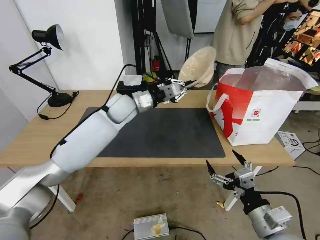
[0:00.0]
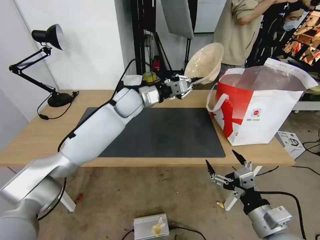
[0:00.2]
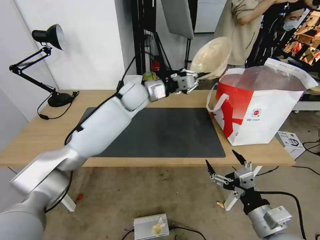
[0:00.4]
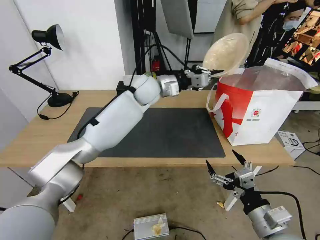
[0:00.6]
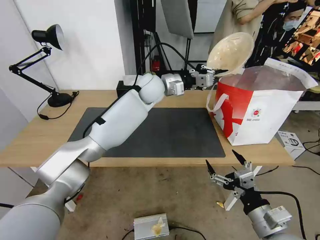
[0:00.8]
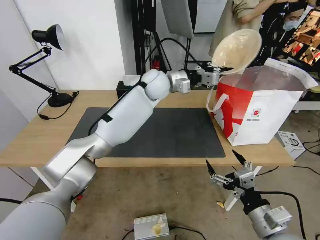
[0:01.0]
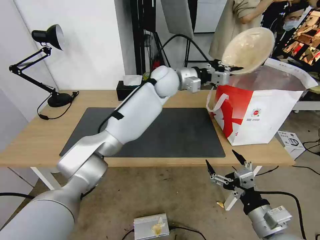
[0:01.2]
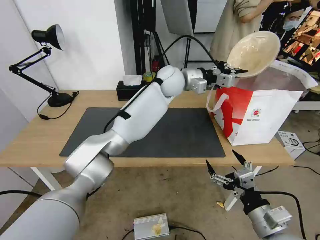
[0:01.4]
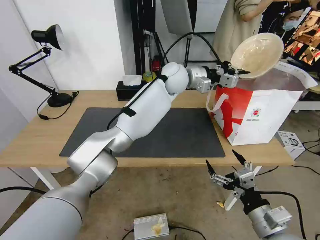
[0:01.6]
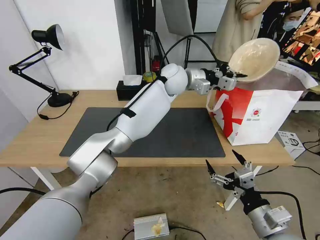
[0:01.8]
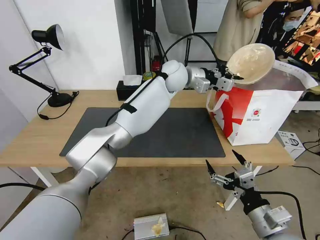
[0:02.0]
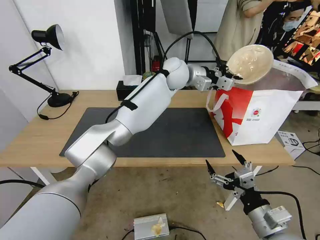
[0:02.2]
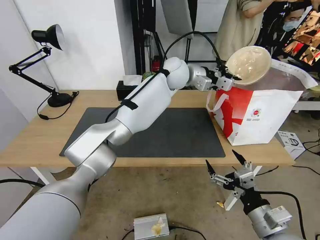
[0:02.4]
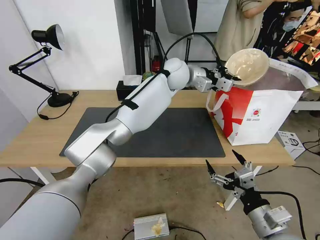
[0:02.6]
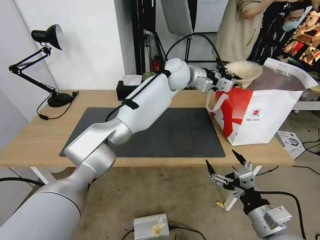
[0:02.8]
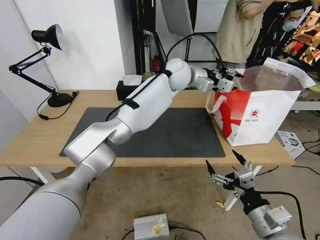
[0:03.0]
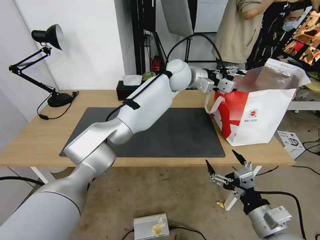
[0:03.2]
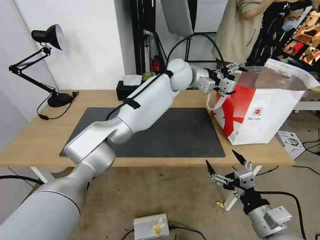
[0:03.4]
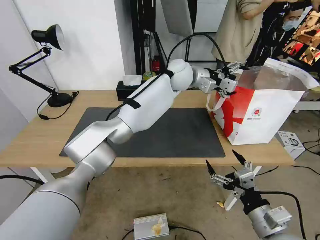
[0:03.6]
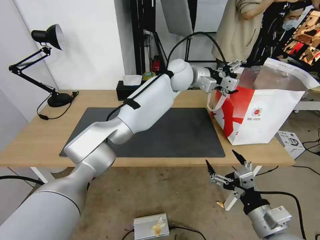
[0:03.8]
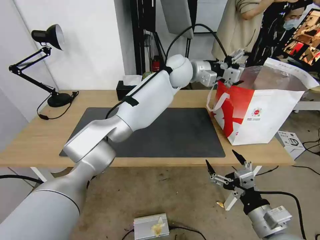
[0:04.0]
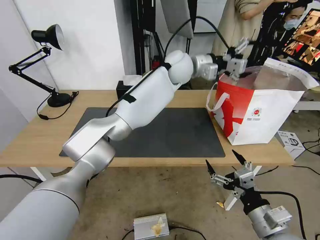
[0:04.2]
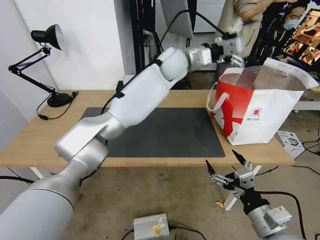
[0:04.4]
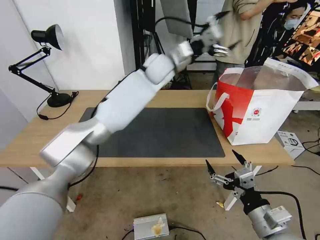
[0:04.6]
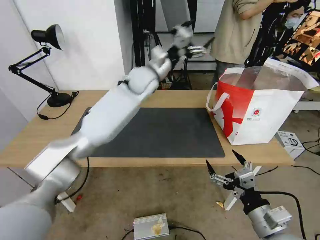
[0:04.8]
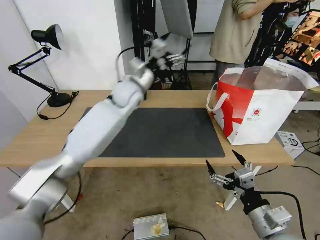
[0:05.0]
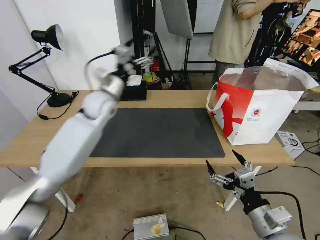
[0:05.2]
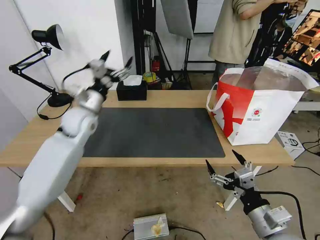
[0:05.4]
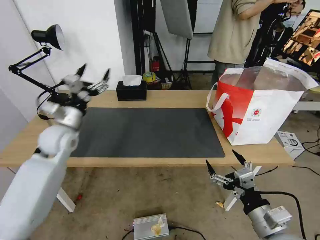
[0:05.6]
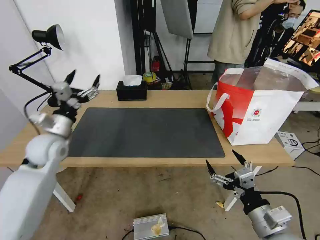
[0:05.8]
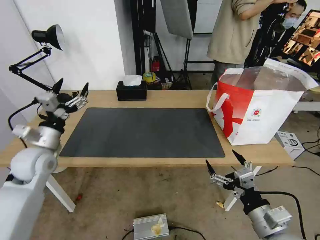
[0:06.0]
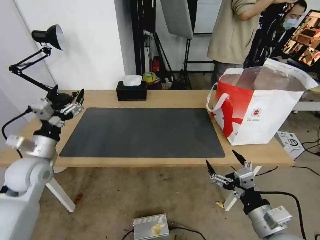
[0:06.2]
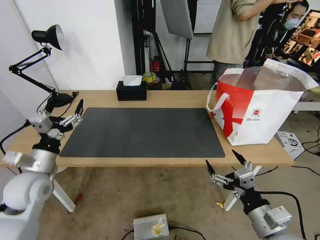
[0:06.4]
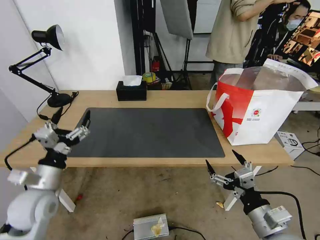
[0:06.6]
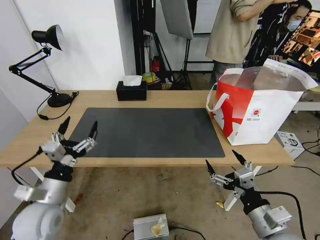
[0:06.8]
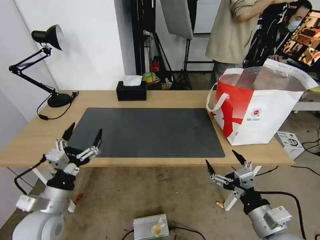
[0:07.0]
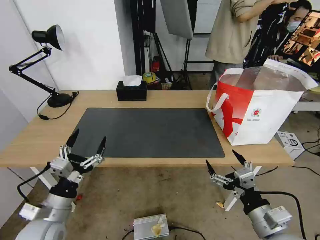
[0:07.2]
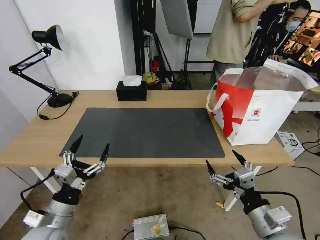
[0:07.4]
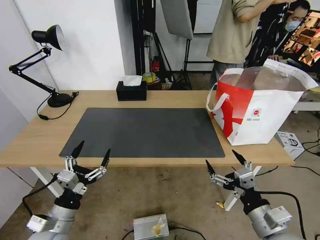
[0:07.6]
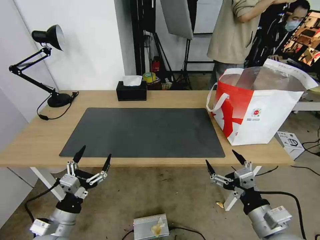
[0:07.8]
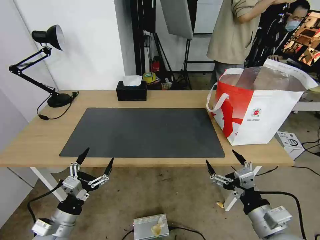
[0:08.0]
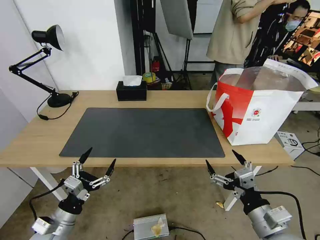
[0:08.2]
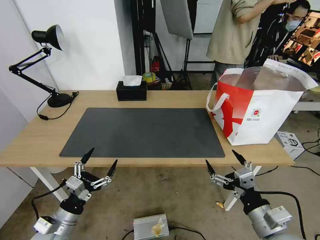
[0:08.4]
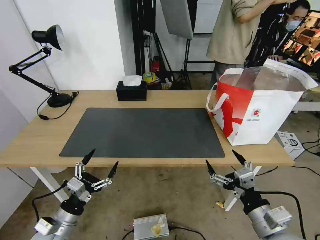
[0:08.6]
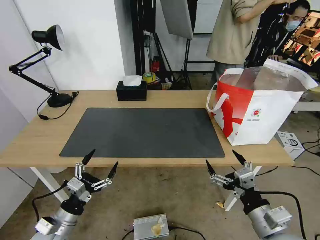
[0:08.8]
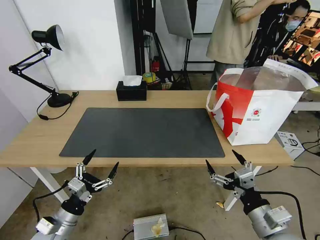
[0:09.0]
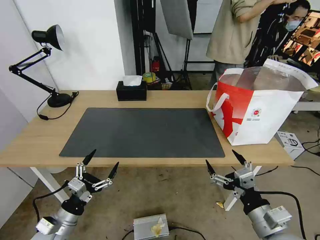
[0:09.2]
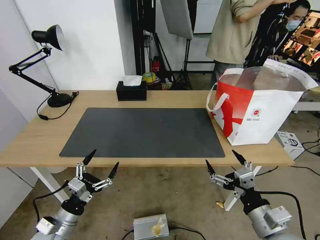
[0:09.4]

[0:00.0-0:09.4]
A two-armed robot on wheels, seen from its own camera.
Task of the whole recording: Pick up the trash from the table and place it into the takeout bag.
0:00.0 to 0:01.6: The left gripper is displaced to the right and upward by about 20 cm.
0:01.6 to 0:03.2: The left gripper opens its fingers.
0:03.2 to 0:04.8: The left gripper heads to the left, covering approximately 10 cm.
0:04.8 to 0:06.2: The left gripper moves to the left, backward and downward, approximately 40 cm.
0:06.2 to 0:07.8: The left gripper moves backward, downward and to the right, approximately 20 cm.
0:07.8 to 0:09.4: The grippers stay close to where they were, moving slightly.

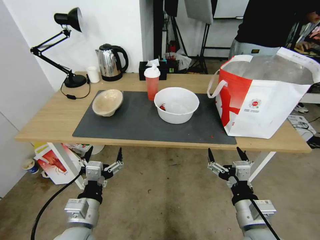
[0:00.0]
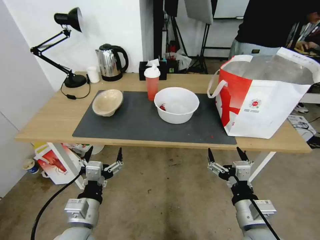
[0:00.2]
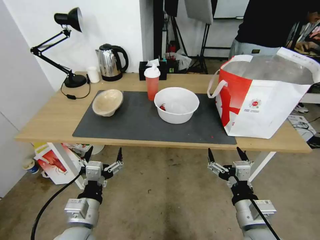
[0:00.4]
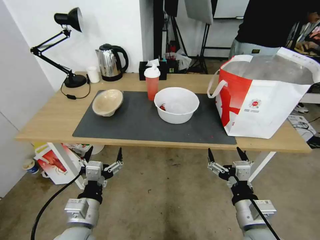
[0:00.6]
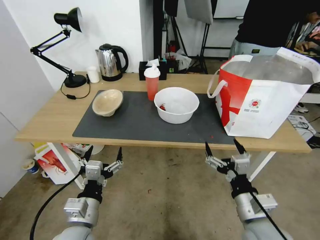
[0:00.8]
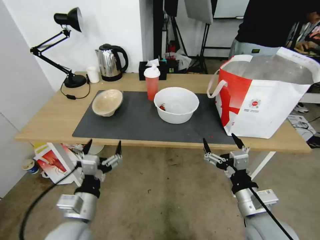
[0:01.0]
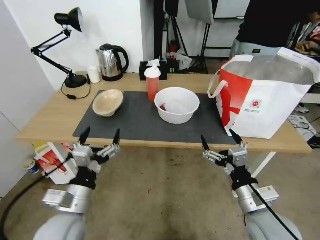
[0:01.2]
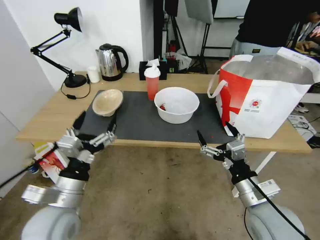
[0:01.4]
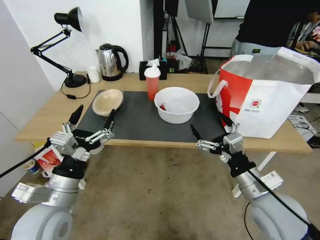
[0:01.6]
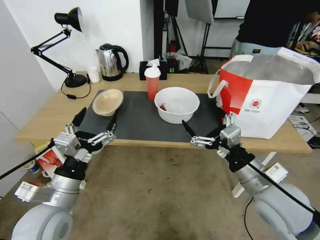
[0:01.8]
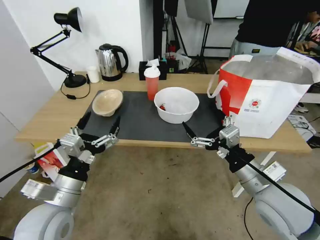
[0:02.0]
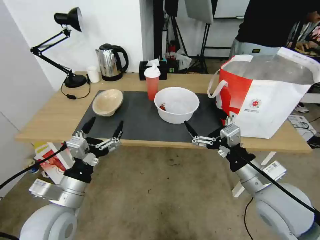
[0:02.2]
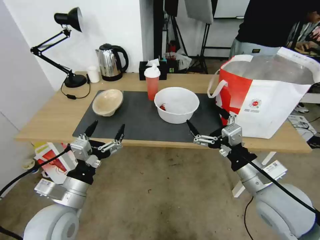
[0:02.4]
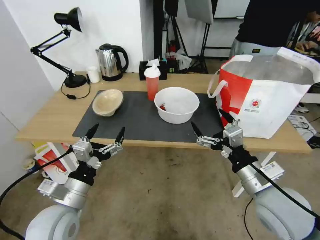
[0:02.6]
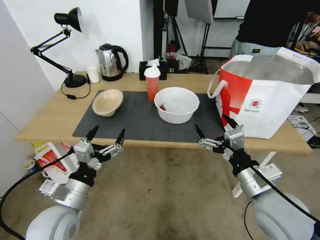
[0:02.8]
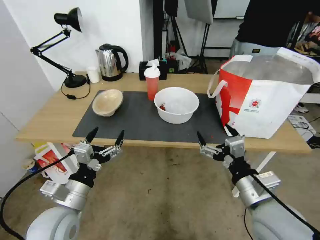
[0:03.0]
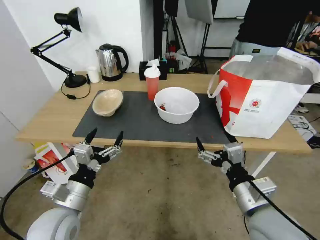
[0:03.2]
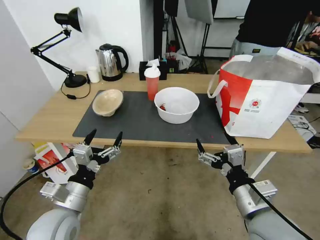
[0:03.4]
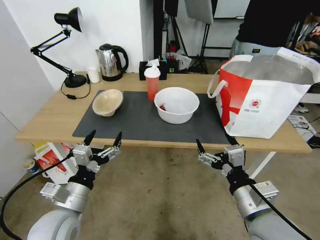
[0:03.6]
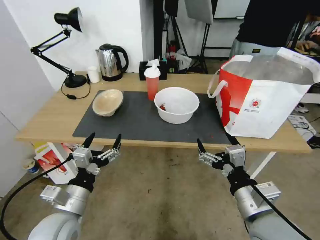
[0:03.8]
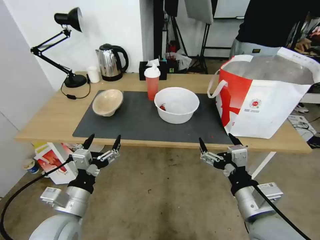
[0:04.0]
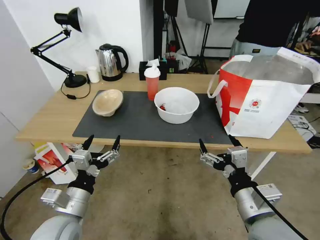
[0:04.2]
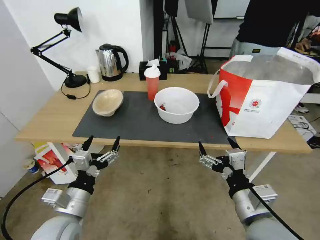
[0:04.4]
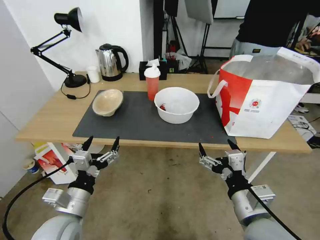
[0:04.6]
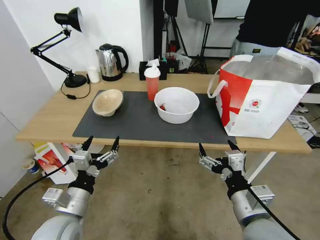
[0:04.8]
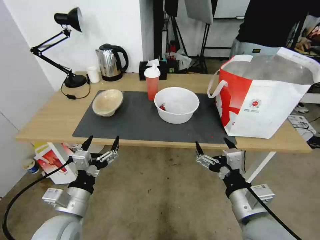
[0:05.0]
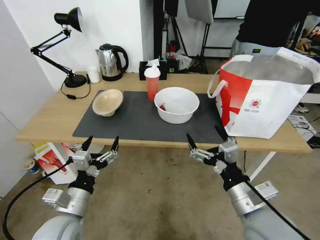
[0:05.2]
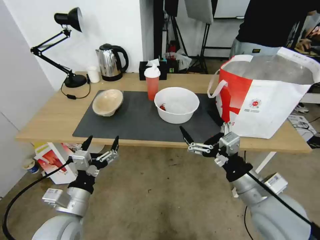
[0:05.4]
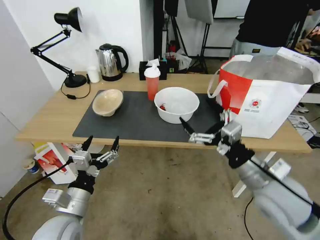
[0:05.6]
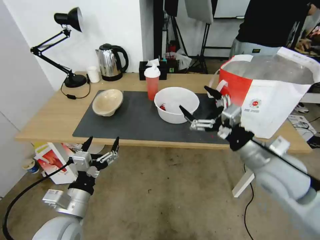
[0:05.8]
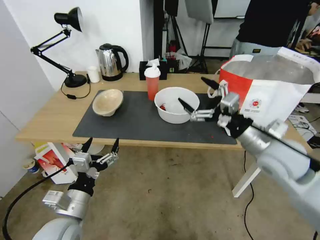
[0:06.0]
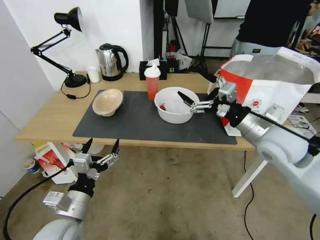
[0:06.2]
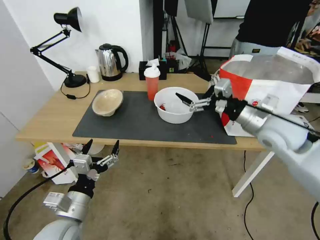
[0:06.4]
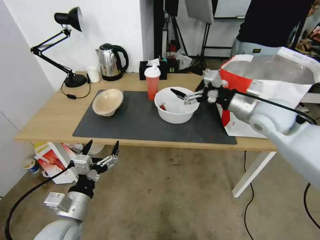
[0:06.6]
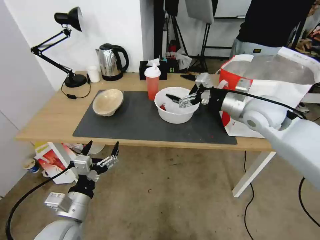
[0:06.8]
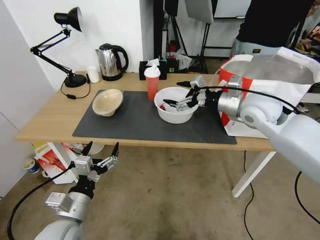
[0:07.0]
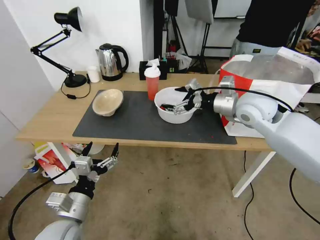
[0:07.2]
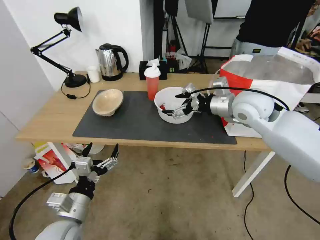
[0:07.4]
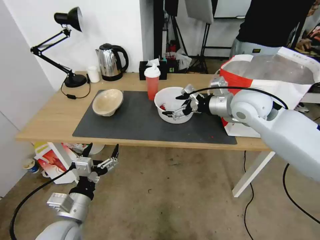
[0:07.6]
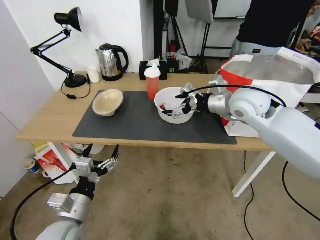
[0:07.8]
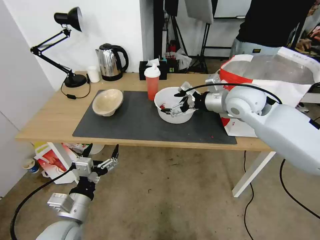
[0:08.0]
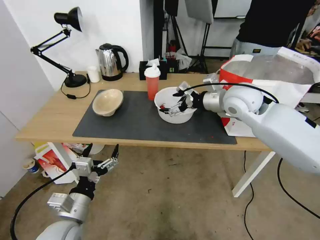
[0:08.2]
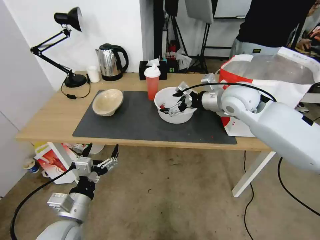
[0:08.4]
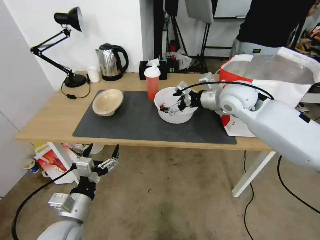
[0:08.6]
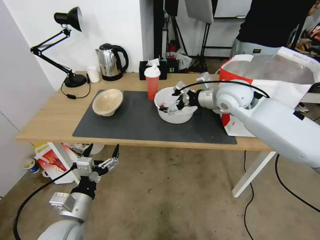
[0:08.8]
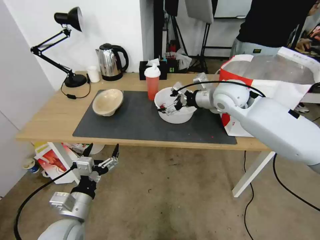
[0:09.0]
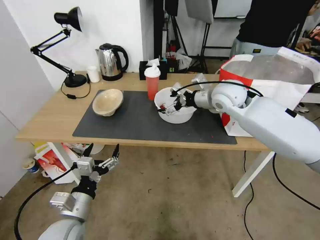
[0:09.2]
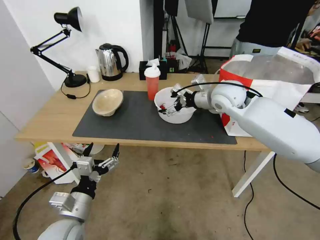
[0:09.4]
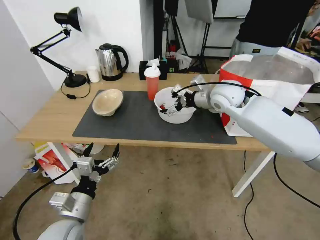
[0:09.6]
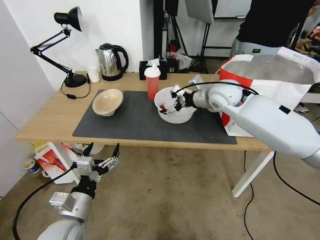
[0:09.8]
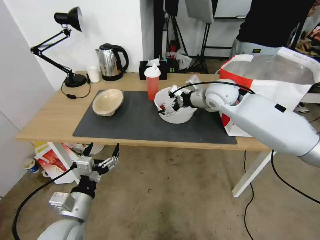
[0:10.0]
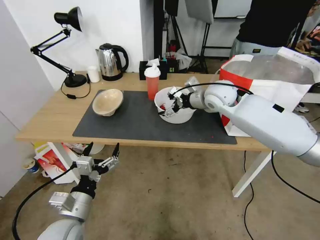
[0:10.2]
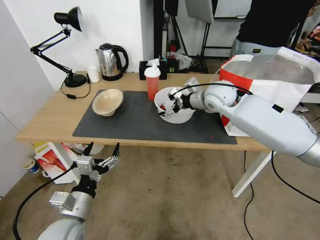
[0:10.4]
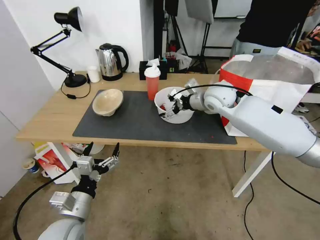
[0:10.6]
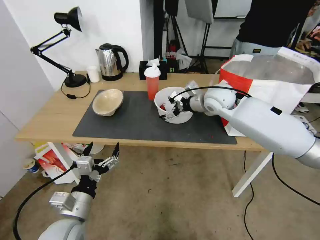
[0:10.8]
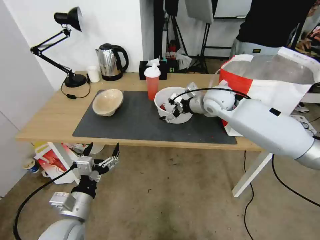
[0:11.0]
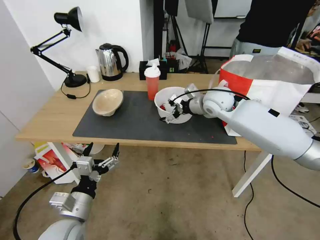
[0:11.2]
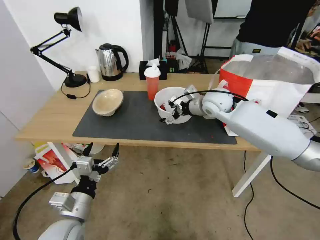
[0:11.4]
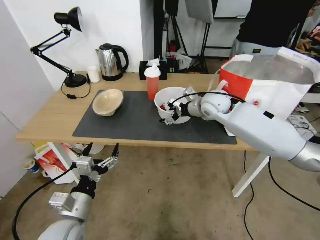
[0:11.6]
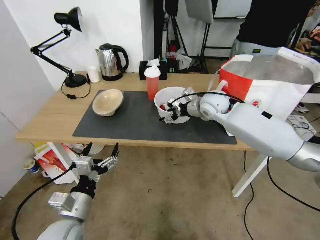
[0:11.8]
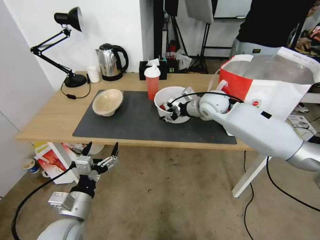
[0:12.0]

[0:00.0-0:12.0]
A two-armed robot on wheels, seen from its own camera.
Task of the whole recording: Pick up the trash from the table and place it into the takeout bag.
0:01.6 to 0:03.0: The grippers move only a little.
0:03.0 to 0:04.4: The grippers stay close to where they were, moving slightly.
0:04.4 to 0:06.0: The right gripper goes some 20 cm forward, upward and to the right.
0:06.0 to 0:07.6: The right gripper travels forward and upward by about 15 cm.
0:07.6 to 0:09.0: The right gripper goes roughly 5 cm forward.
0:09.0 to 0:10.4: The grippers stay close to where they were, moving slightly.
0:10.4 to 0:12.0: The right gripper closes its fingers.

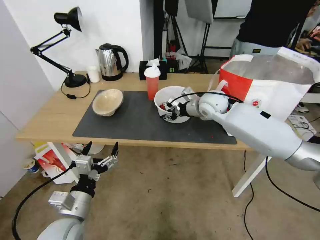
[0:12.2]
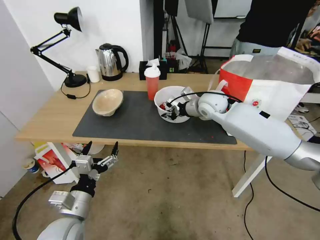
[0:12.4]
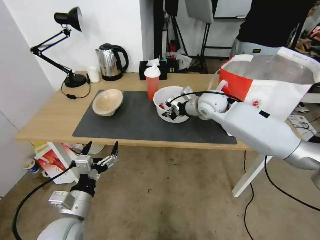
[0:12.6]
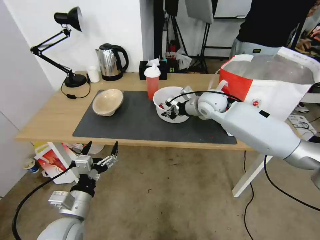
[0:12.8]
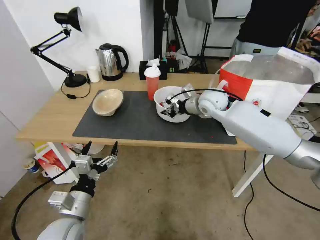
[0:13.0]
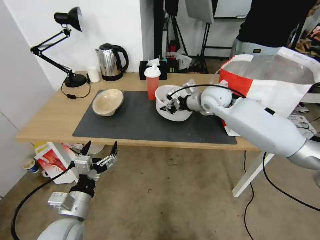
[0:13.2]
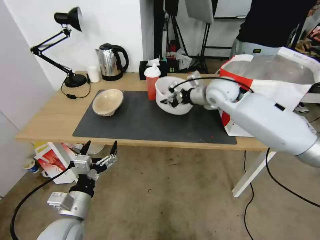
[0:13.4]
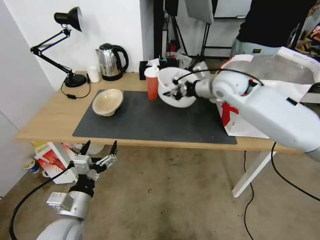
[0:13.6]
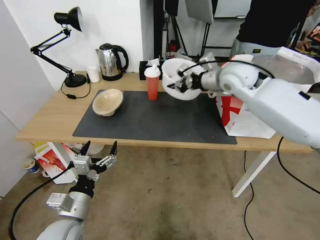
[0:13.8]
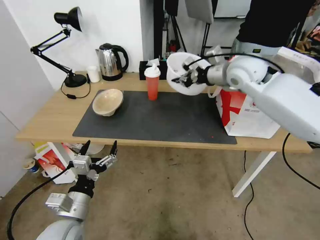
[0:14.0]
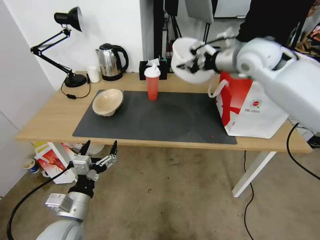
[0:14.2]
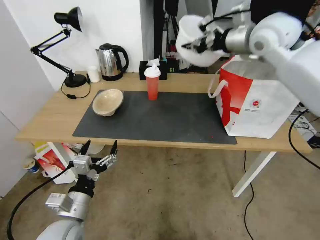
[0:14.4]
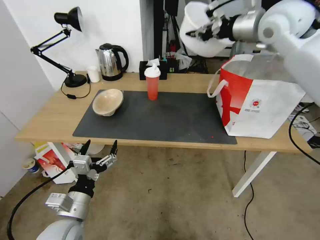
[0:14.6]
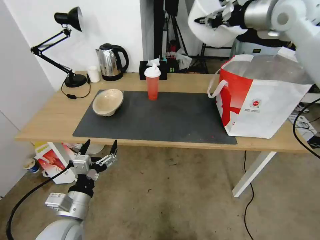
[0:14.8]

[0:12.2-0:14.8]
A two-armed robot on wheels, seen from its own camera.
Task of the whole recording: Pick up the trash from the table and place it into the takeout bag.
0:12.2 to 0:13.4: The right gripper goes some 5 cm upward.
0:13.4 to 0:14.8: The right gripper goes about 25 cm upward and to the right.
